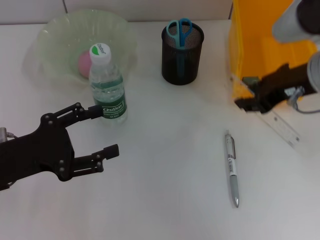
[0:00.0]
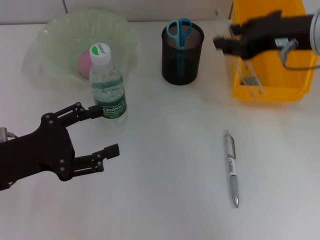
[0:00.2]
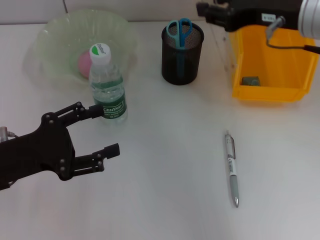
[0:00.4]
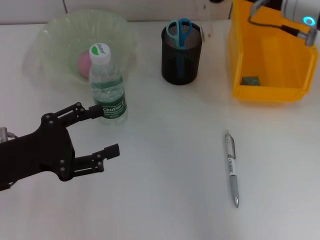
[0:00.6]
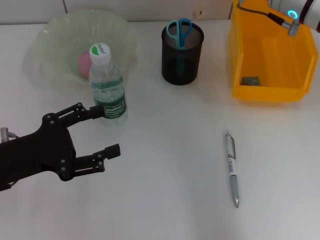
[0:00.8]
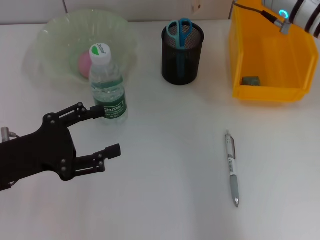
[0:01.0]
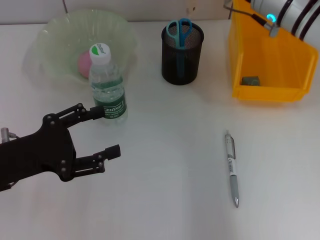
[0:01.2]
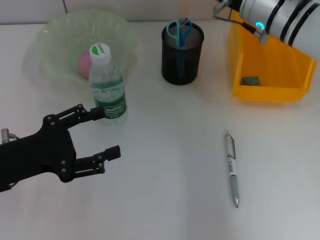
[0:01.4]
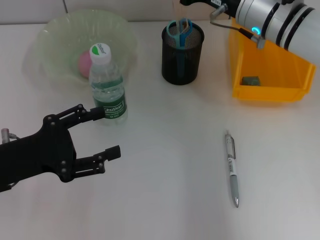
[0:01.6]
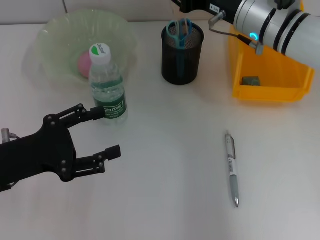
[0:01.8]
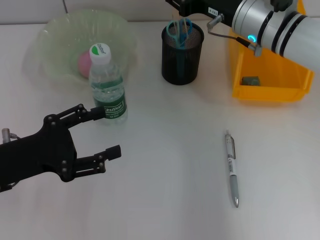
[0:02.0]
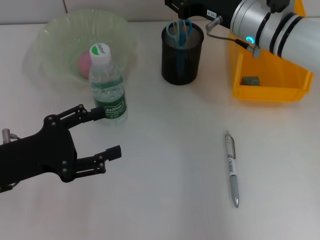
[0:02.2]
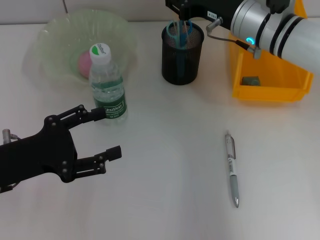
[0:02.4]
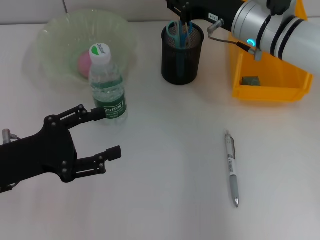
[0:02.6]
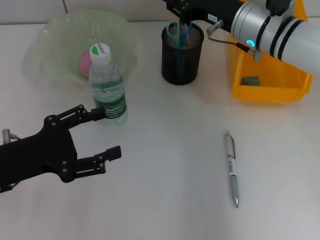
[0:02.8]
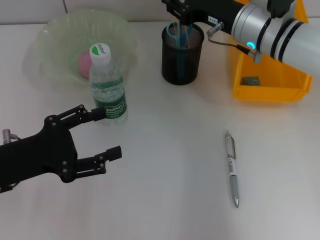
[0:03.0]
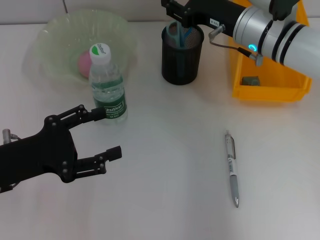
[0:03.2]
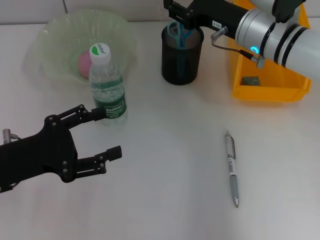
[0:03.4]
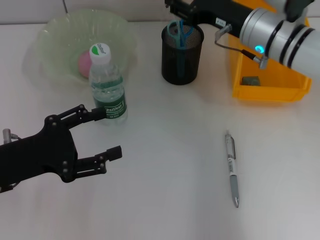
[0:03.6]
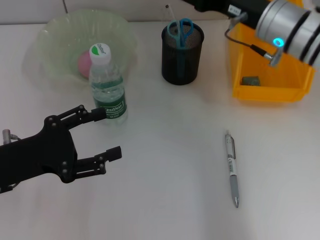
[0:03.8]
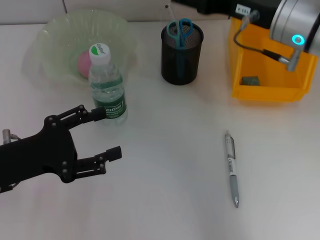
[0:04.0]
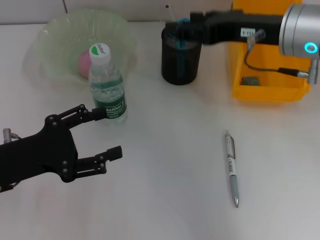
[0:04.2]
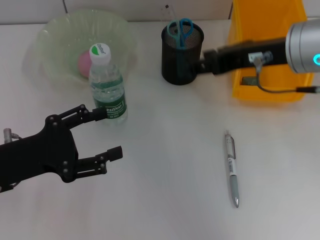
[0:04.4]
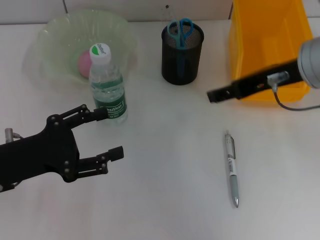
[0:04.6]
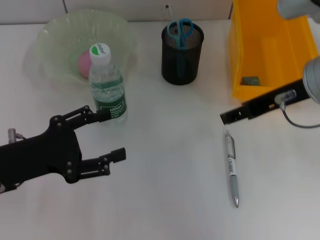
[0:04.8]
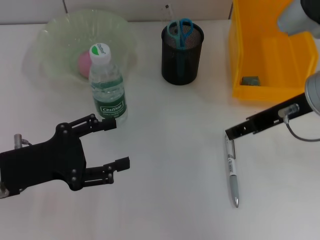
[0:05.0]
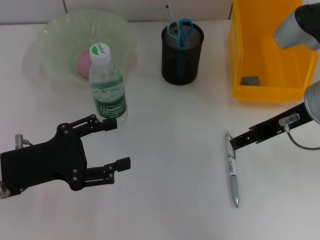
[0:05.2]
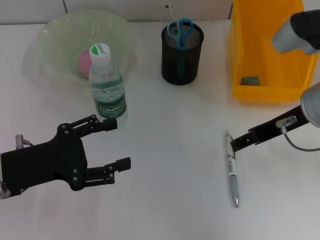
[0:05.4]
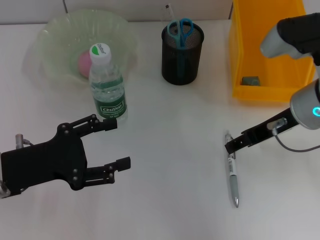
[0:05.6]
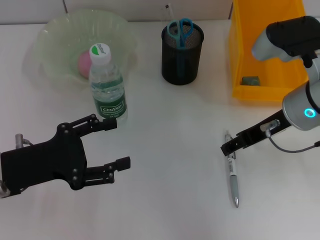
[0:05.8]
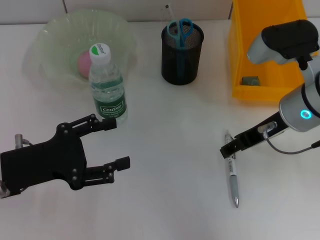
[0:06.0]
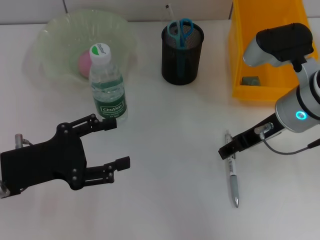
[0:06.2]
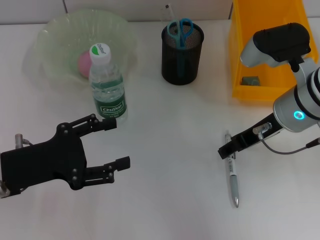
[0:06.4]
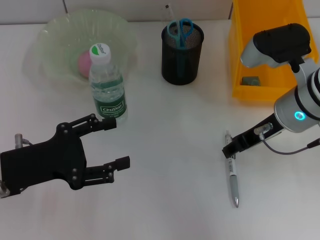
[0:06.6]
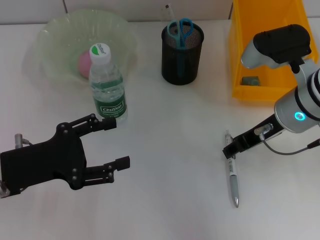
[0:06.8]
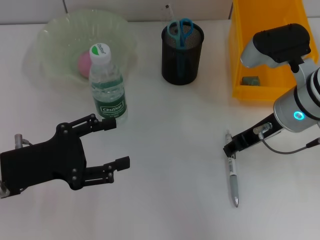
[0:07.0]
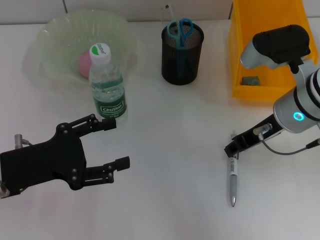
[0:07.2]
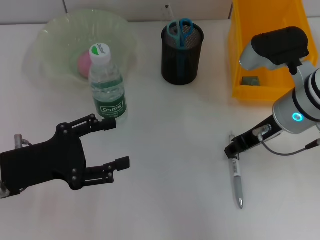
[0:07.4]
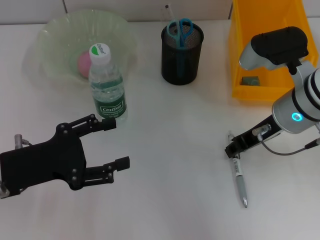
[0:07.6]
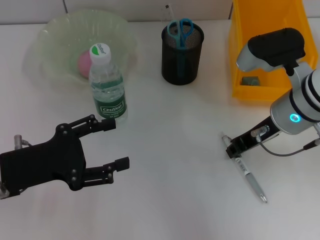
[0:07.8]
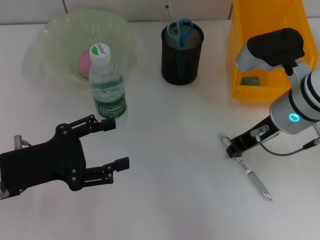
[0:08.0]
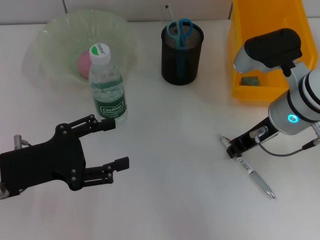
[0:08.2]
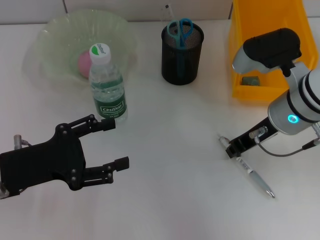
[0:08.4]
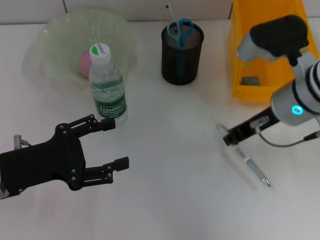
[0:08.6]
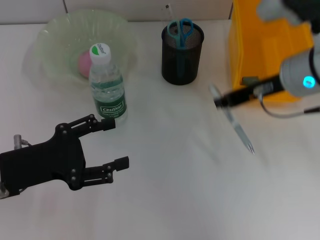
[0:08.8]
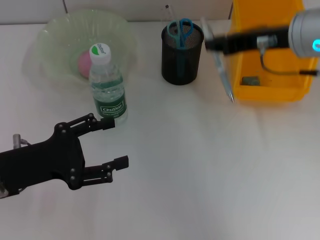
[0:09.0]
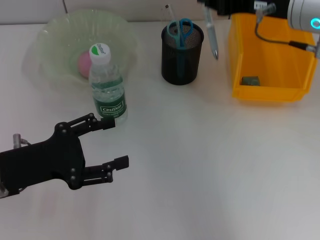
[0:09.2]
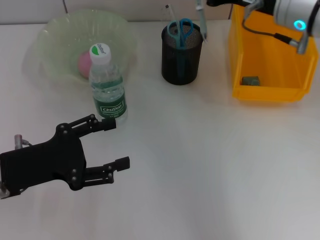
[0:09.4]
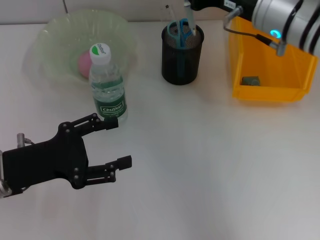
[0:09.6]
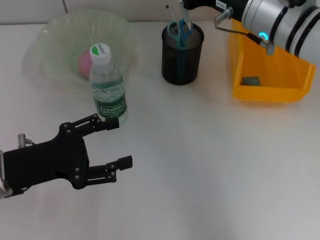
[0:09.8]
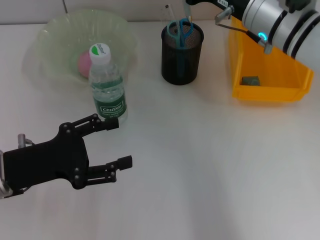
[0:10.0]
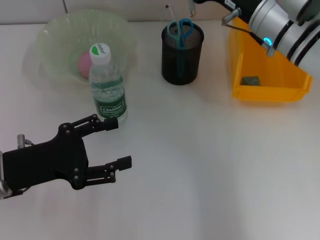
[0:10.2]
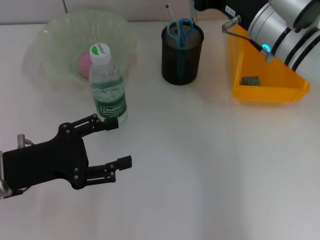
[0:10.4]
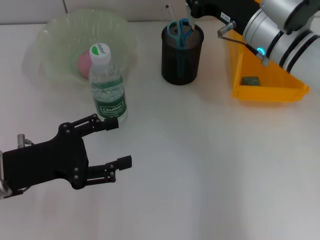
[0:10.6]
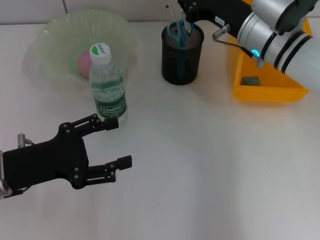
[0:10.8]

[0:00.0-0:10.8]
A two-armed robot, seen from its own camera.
Step, 0:00.0 to 0:03.4: Place the ruler into the pen holder with the right hand.
Step, 0:03.8 to 0:08.2: Grab the gray spring-action pen with the right hand.
0:00.0 to 0:01.6: The right gripper heads forward and downward, covering about 10 cm.
0:01.6 to 0:03.0: The grippers move only a little.
0:03.0 to 0:04.6: The right gripper is displaced backward and upward by some 15 cm, and opens up.
0:04.6 to 0:06.2: The right gripper moves downward, about 10 cm.
0:06.2 to 0:07.8: The right gripper closes its fingers.
0:07.8 to 0:09.2: The right gripper shifts approximately 10 cm upward.
0:09.2 to 0:10.8: The right gripper travels downward by about 10 cm.

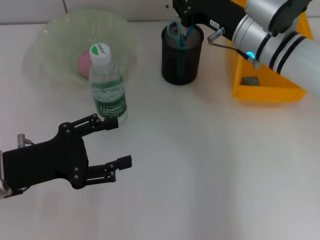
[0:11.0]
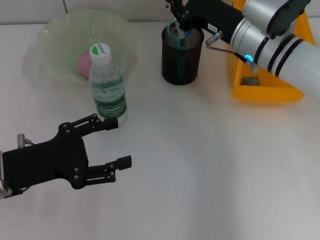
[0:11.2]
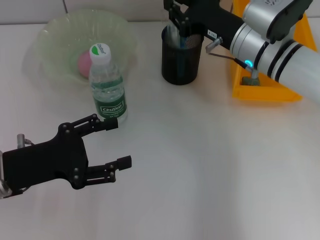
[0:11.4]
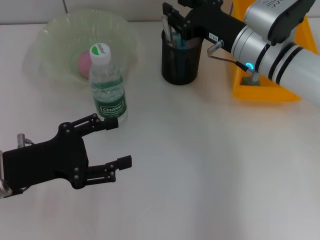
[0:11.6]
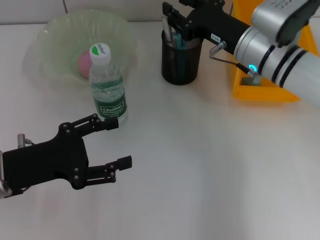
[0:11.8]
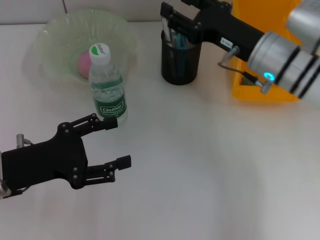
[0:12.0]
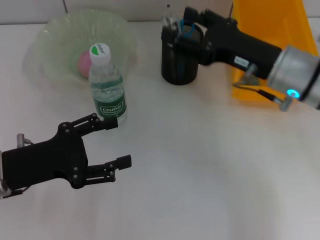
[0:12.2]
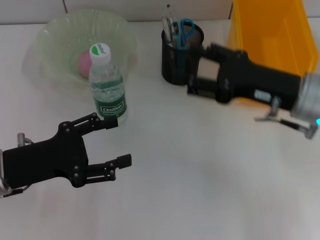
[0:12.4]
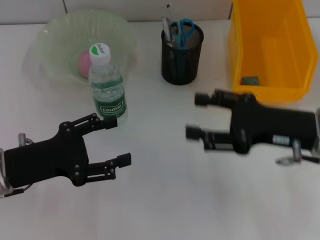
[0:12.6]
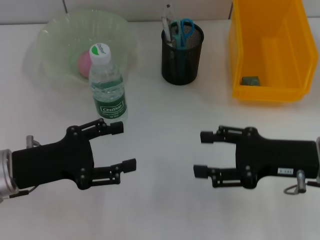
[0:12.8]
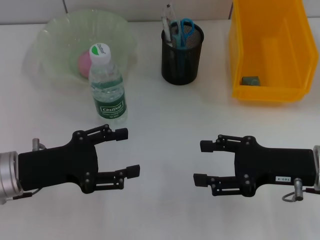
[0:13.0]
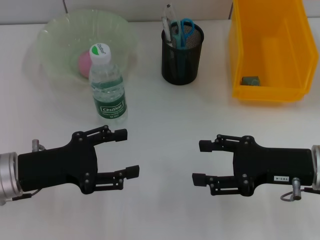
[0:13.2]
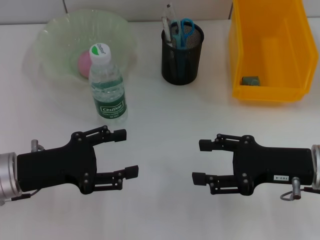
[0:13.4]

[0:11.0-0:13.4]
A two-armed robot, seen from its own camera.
0:11.0 to 0:12.2: The right gripper goes roughly 5 cm backward, and opens its fingers.
0:12.2 to 0:13.4: The right gripper moves backward, to the right and downward, roughly 10 cm.
